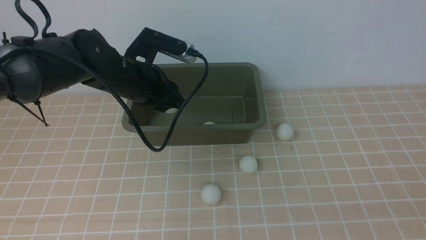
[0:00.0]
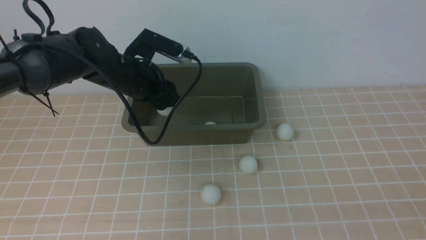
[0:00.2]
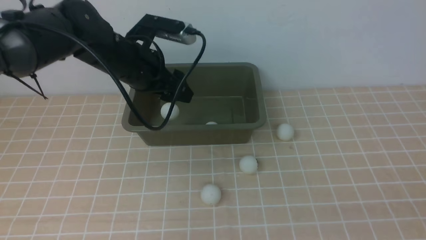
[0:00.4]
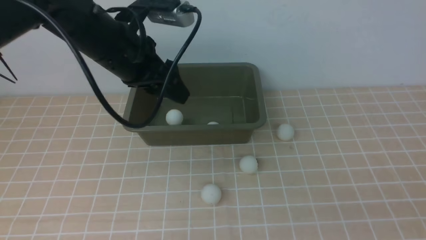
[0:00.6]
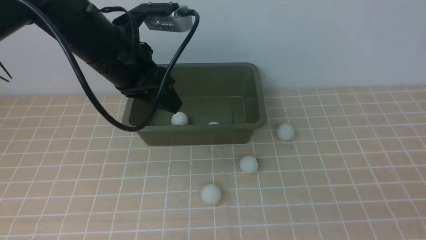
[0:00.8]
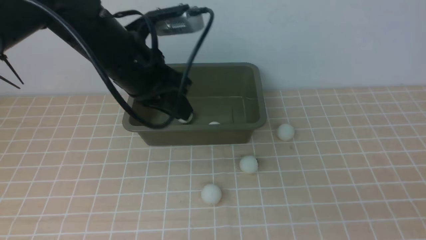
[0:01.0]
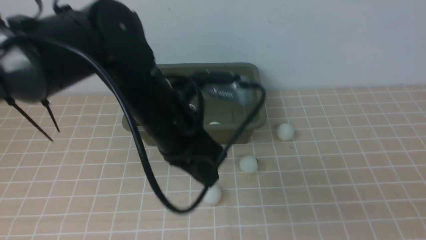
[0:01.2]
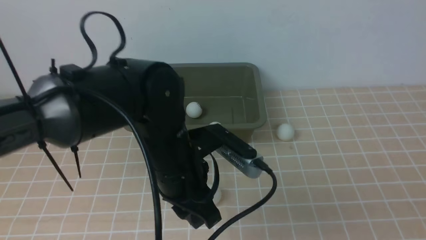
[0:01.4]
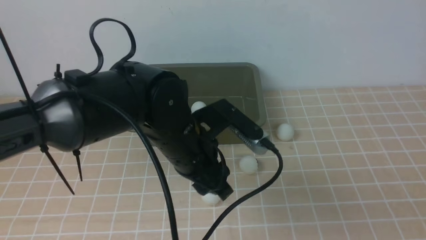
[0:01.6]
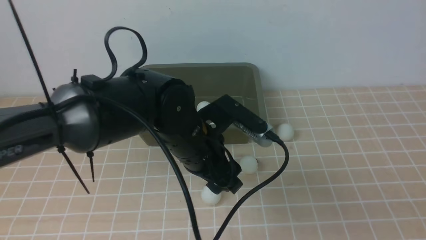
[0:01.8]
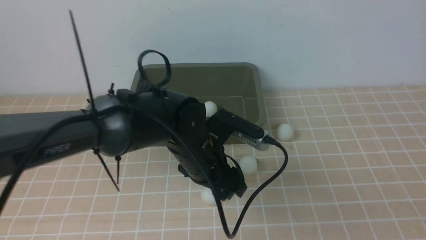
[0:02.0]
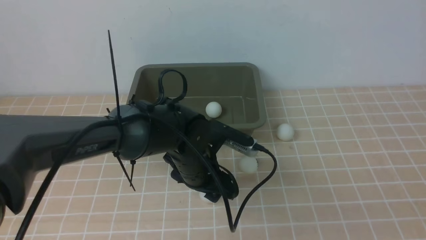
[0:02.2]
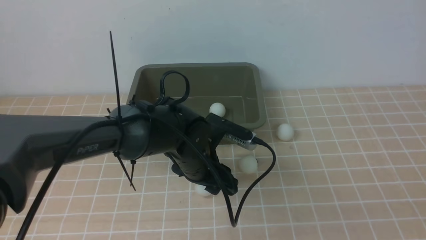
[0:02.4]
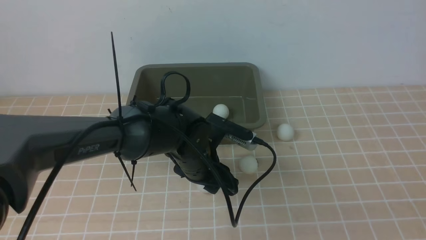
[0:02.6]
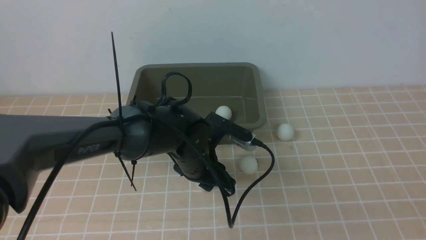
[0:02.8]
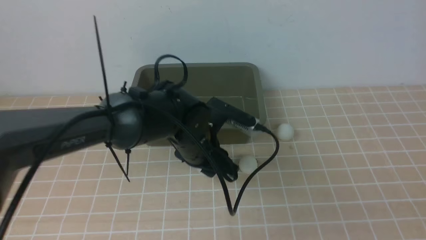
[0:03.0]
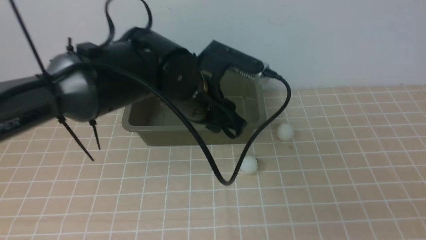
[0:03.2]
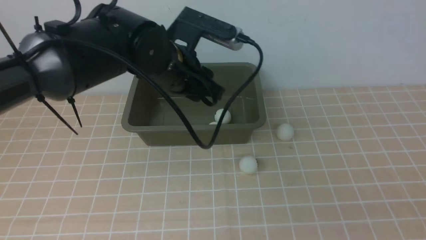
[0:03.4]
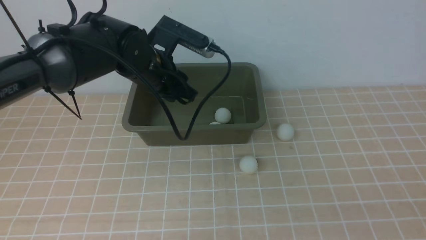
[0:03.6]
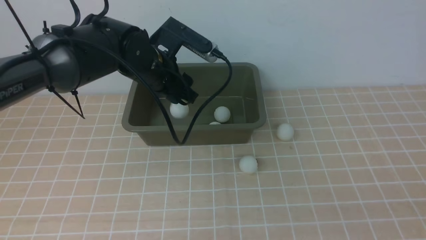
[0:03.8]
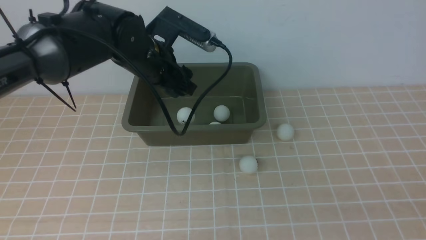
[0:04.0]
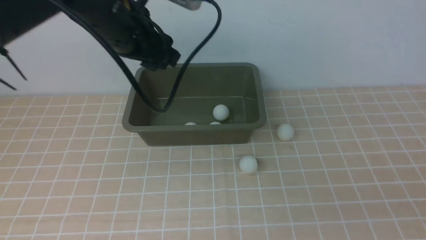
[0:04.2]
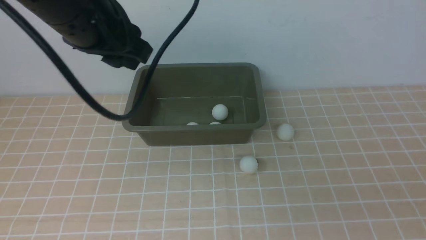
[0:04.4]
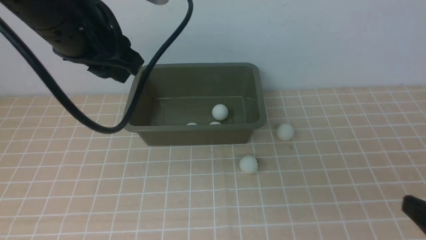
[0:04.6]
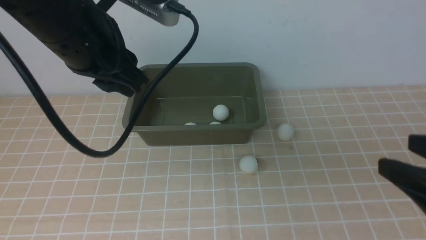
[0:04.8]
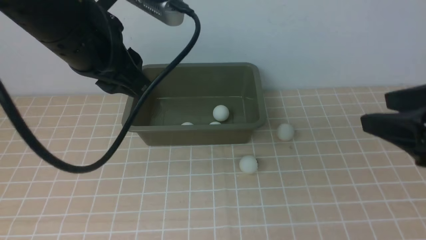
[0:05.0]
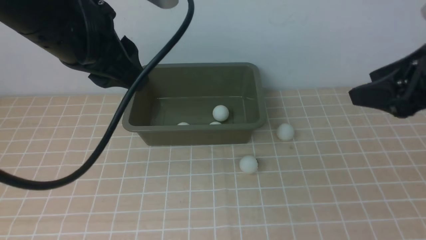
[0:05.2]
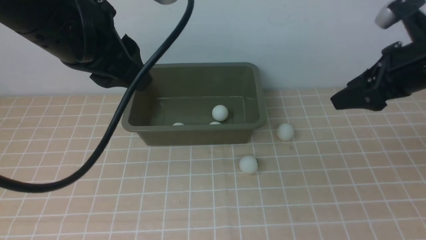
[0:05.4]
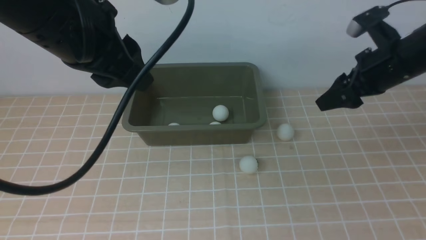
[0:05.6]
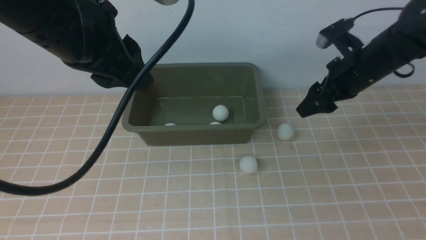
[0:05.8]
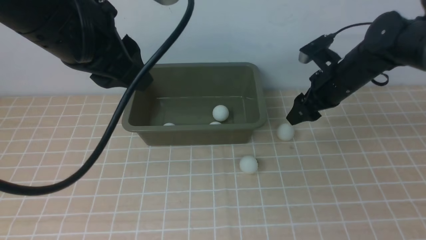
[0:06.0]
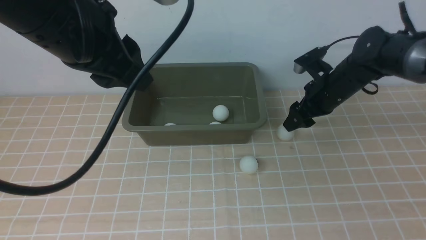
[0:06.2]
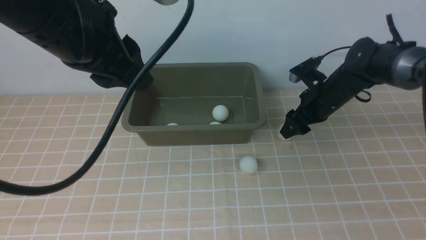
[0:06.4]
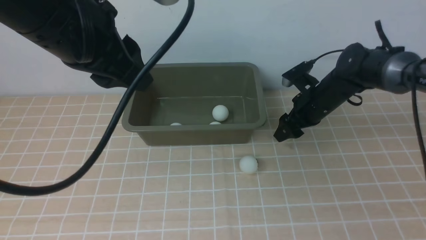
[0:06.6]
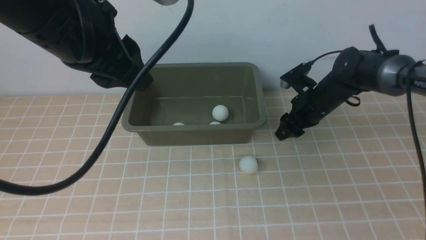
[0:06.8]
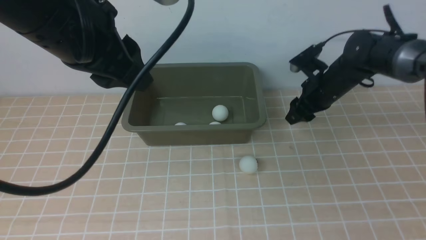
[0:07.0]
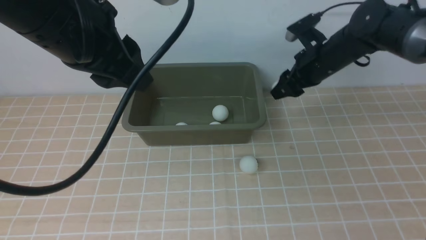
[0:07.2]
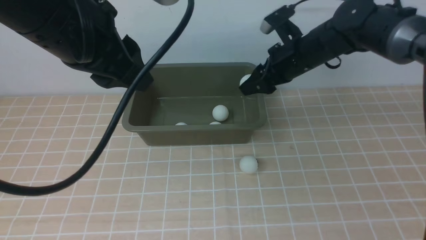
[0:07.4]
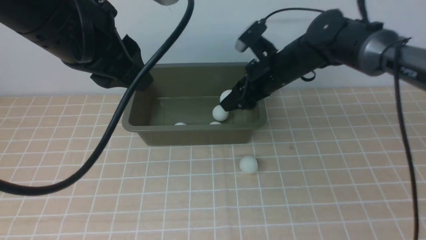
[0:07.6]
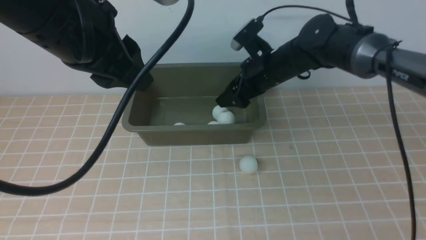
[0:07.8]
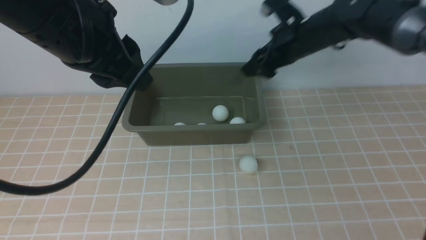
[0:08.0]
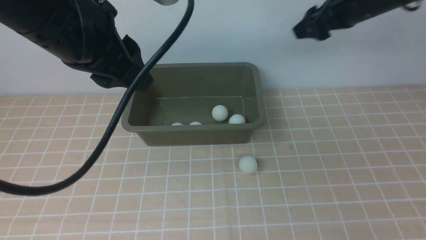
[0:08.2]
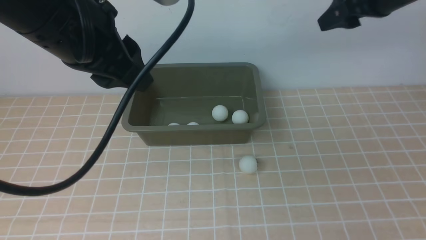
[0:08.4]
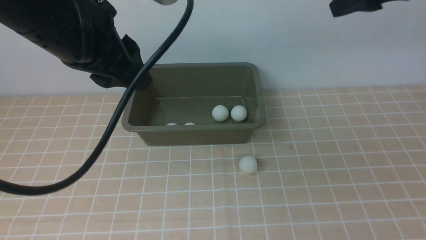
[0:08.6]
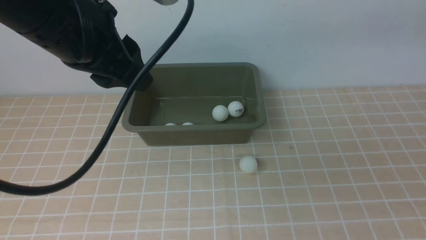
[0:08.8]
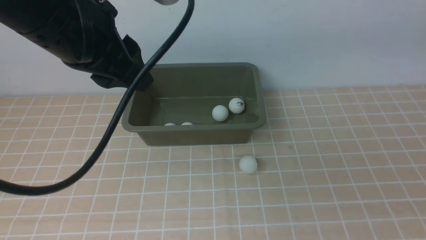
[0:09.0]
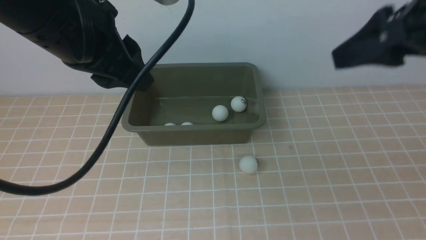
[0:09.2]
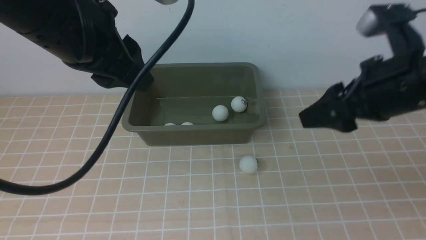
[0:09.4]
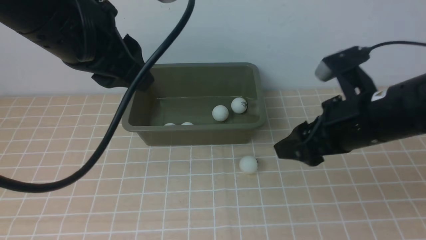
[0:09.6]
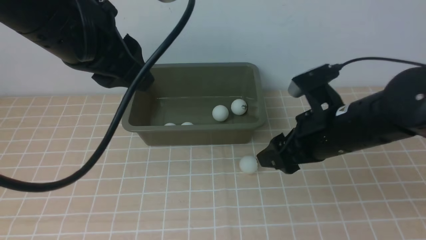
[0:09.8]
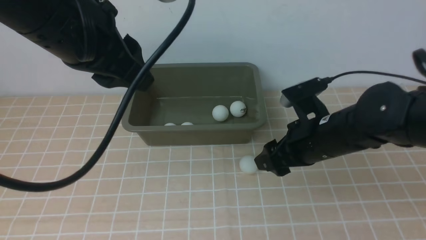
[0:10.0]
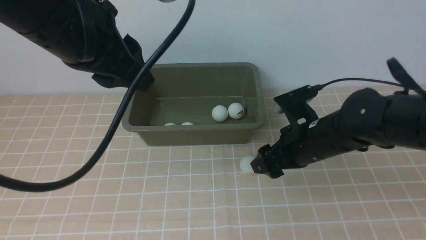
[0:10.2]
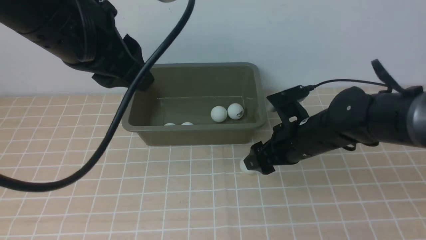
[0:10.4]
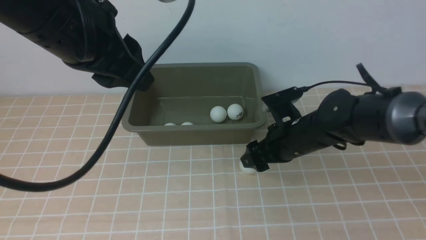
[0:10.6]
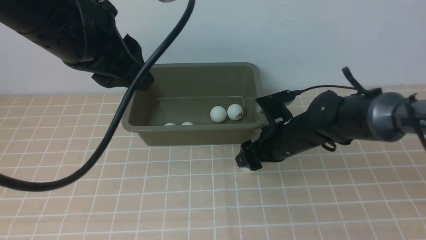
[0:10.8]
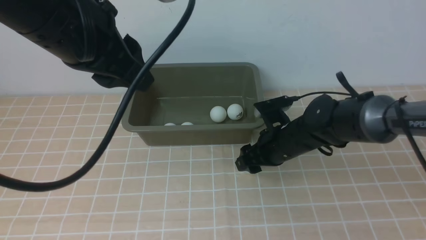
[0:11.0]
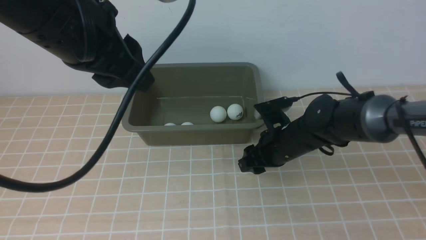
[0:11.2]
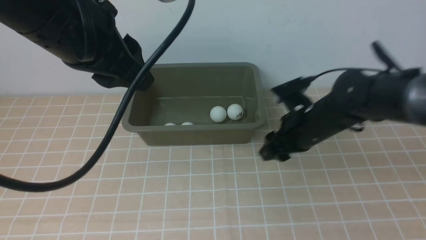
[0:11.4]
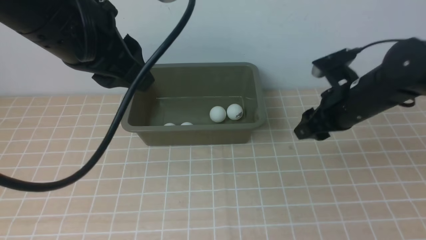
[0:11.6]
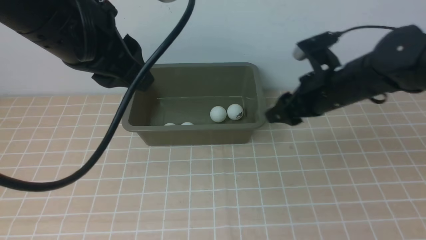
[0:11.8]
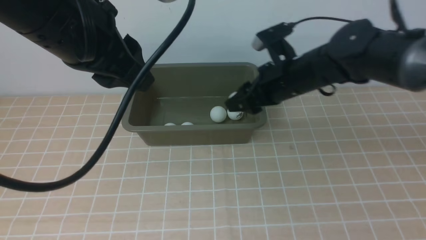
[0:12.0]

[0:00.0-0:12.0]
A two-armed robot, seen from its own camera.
Step, 0:00.0 to 0:00.6: use the left arm to put the table tennis ball into the box.
Step, 0:00.8 to 0:03.2: use the left arm to clamp the table tennis ball closest to it.
Step, 0:03.4 to 0:04.4: use the left arm to put the table tennis ball into the box.
Step, 0:04.6 to 0:07.0: use the right arm to clamp the table tennis ball closest to it.
Step, 0:07.4 to 0:08.6: use the right arm to put the table tennis ball into the box.
Step, 0:08.8 to 0:11.6: use the right arm to clamp the table tennis ball closest to it.
0:00.0 to 0:01.6: The left gripper shifts roughly 15 cm backward and to the right, and closes and opens again.
0:01.6 to 0:03.0: The left gripper shifts approximately 5 cm forward, goes downward and returns, some 10 cm each way, and opens, then closes again.
0:03.0 to 0:04.4: The left gripper travels upward and to the left by approximately 20 cm, and opens and closes again.
0:04.4 to 0:06.0: The left gripper is displaced backward by about 5 cm; the right gripper heads forward, covering approximately 40 cm.
0:06.0 to 0:07.6: The right gripper heads to the left, covering roughly 10 cm, and closes its fingers.
0:07.6 to 0:09.0: The right gripper travels upward, backward and to the right by approximately 30 cm.
0:09.0 to 0:10.4: The right gripper is displaced downward by about 30 cm.
0:10.4 to 0:12.0: The right gripper travels forward and upward by roughly 10 cm, and closes up.

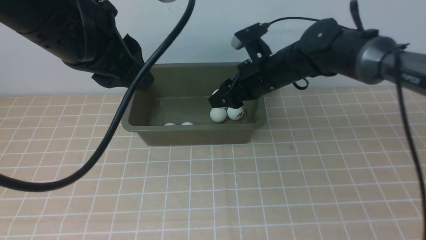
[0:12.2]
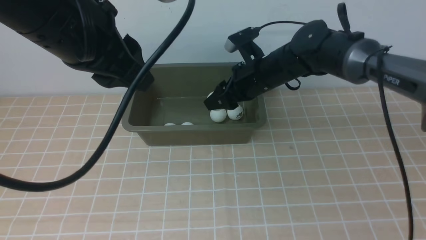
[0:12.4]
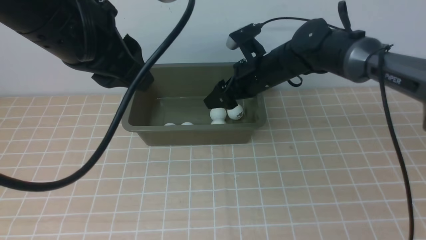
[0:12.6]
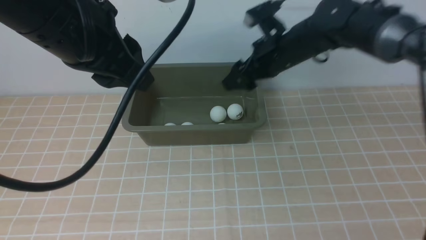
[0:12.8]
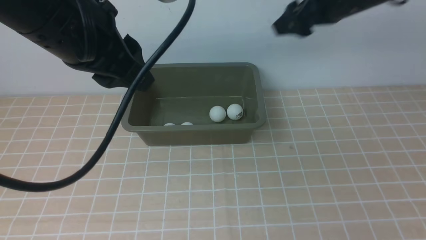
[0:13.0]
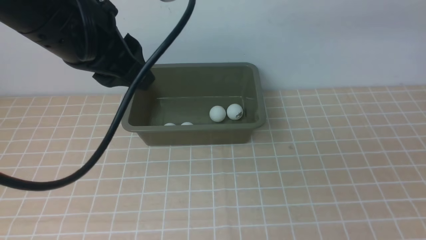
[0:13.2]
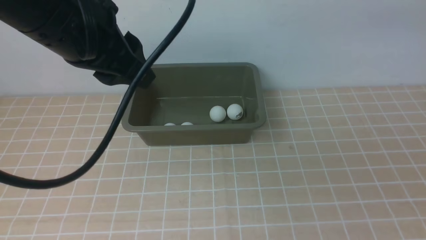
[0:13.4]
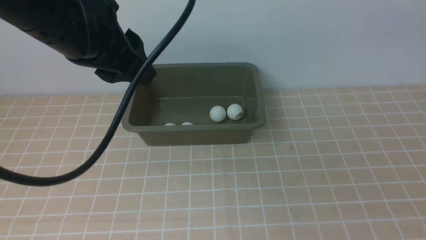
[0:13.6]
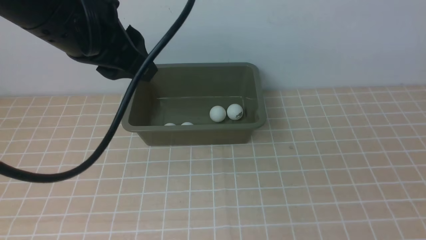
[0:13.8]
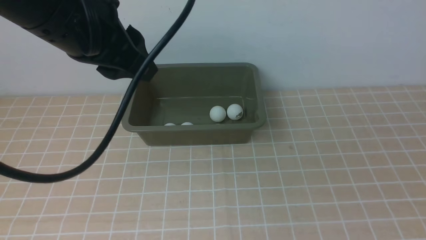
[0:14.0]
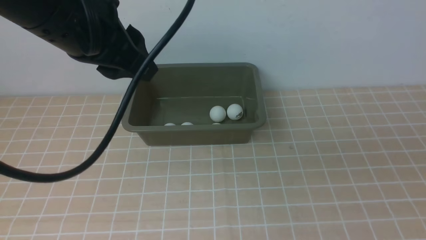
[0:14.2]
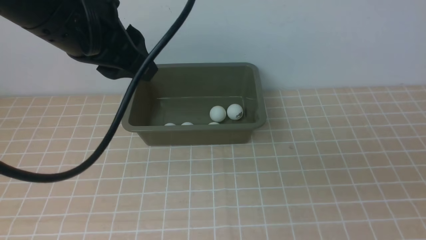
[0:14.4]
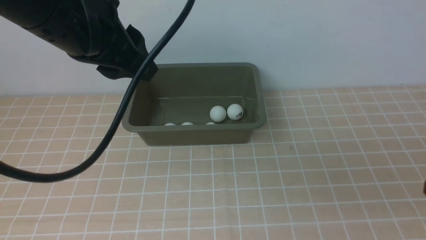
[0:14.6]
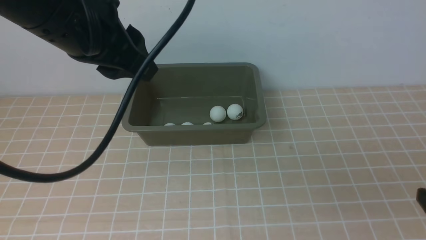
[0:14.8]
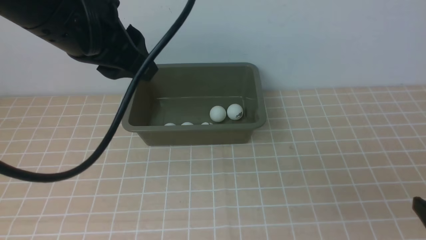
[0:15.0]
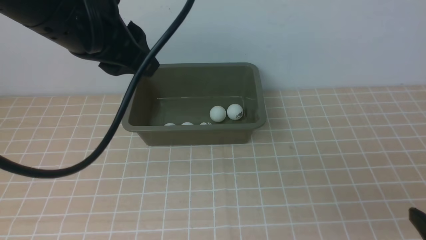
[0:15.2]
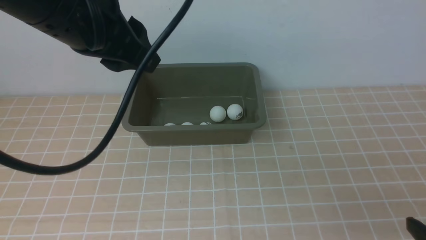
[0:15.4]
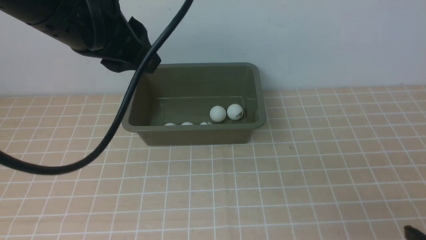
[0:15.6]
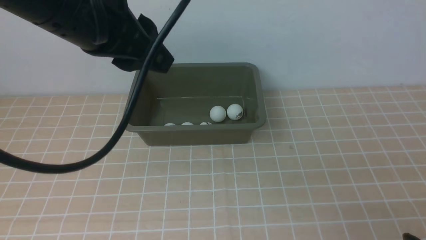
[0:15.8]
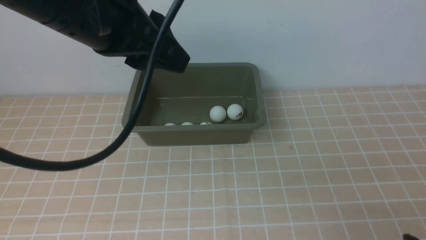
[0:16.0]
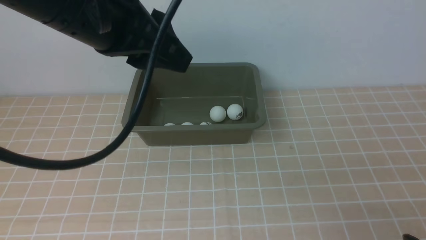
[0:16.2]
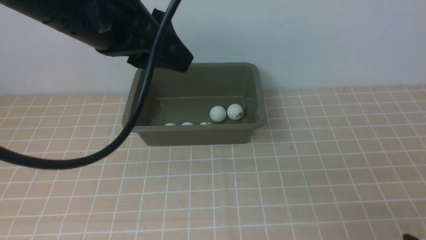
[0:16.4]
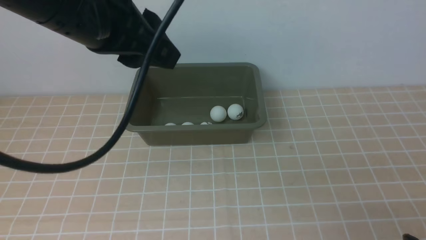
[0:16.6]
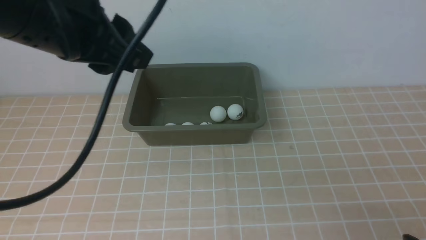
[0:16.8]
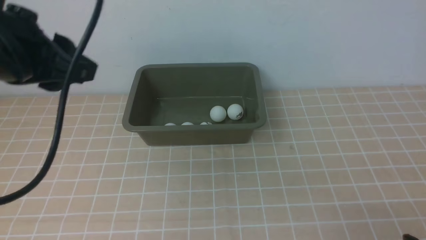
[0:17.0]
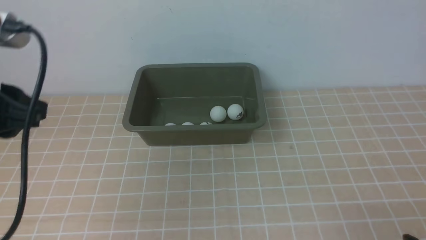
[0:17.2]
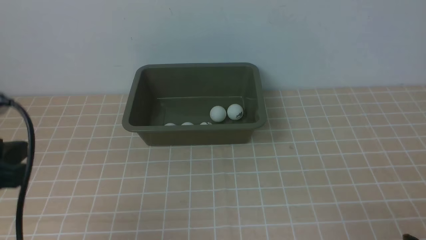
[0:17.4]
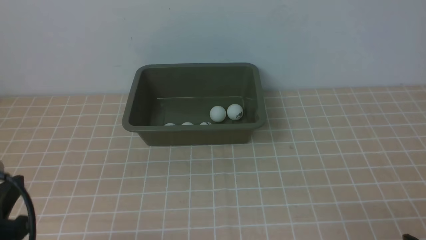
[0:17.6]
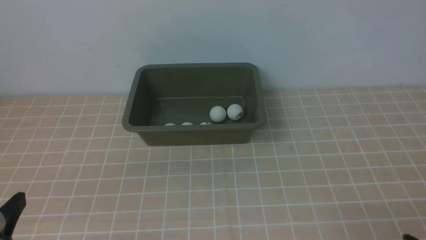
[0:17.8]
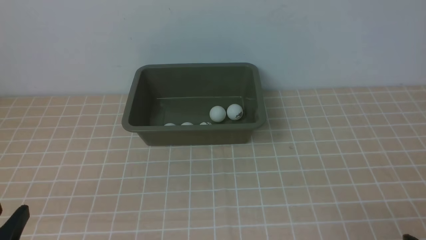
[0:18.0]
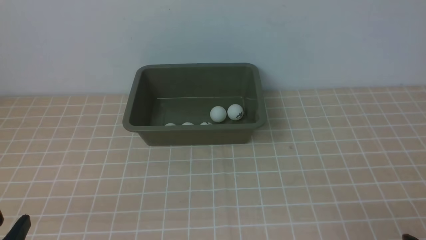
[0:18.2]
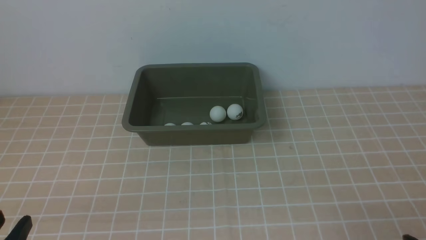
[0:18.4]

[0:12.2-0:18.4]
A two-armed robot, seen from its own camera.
Step, 0:12.2 to 0:12.8: use the right arm to put the table tennis ball into the box.
0:12.2 to 0:13.8: The right gripper travels backward, upward and to the right by some 40 cm, and opens up.
0:13.8 to 0:15.4: The right gripper travels downward by about 25 cm.
0:15.4 to 0:16.8: The grippers move only a little.
0:16.8 to 0:18.4: The left gripper goes roughly 30 cm downward and backward.
